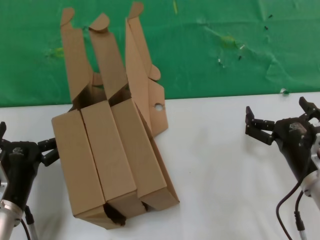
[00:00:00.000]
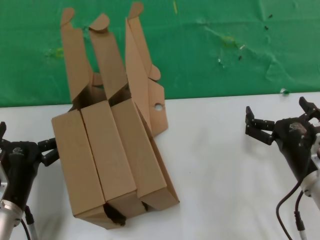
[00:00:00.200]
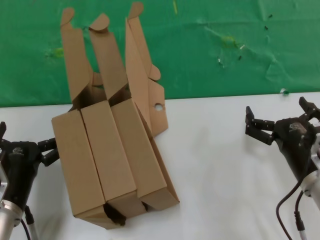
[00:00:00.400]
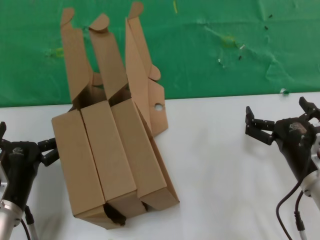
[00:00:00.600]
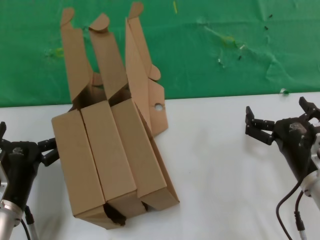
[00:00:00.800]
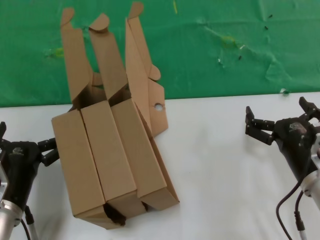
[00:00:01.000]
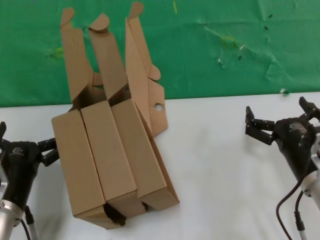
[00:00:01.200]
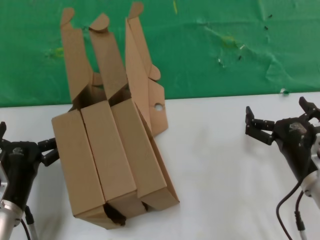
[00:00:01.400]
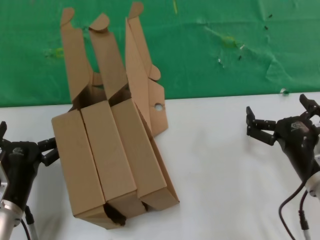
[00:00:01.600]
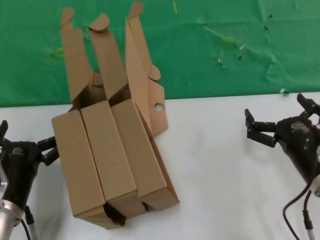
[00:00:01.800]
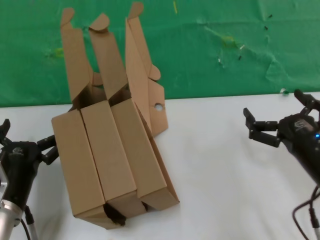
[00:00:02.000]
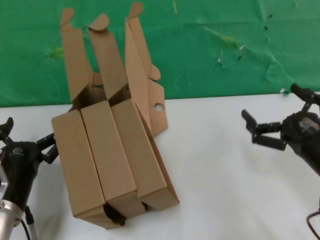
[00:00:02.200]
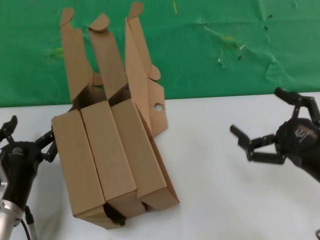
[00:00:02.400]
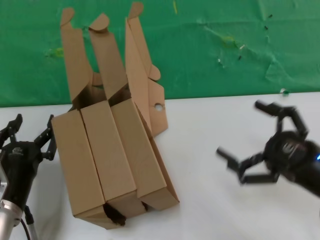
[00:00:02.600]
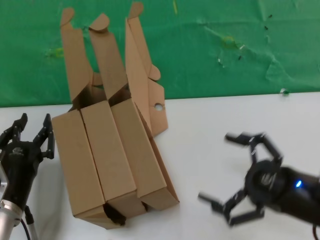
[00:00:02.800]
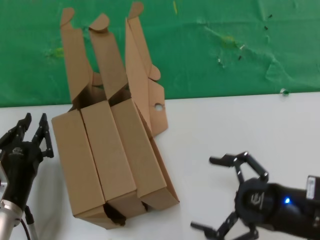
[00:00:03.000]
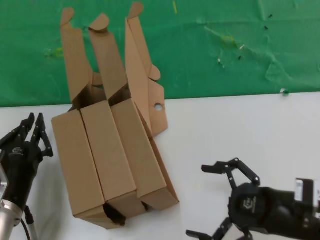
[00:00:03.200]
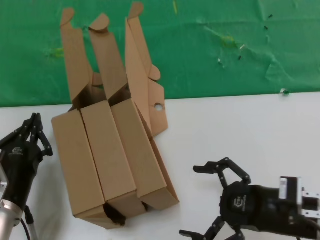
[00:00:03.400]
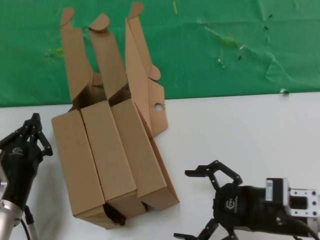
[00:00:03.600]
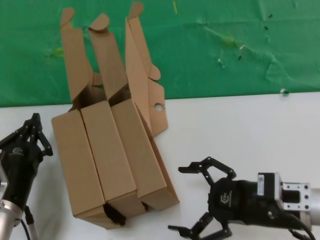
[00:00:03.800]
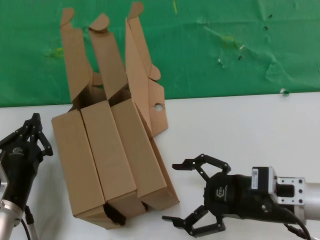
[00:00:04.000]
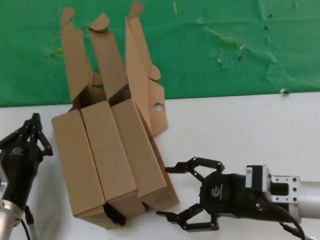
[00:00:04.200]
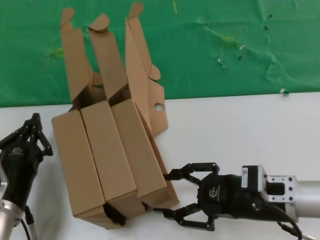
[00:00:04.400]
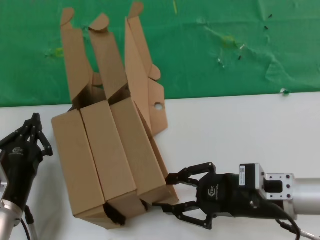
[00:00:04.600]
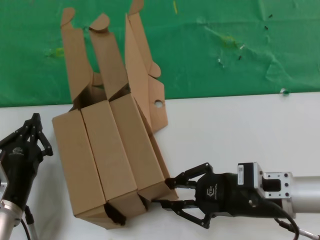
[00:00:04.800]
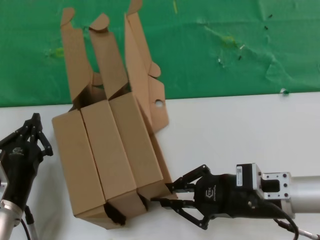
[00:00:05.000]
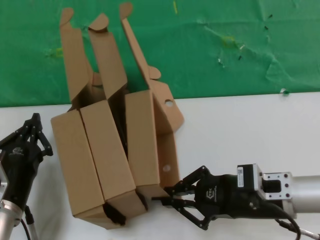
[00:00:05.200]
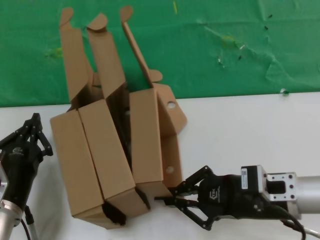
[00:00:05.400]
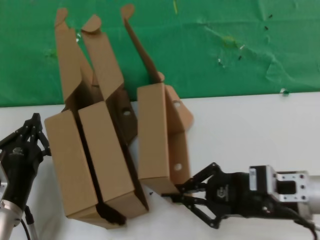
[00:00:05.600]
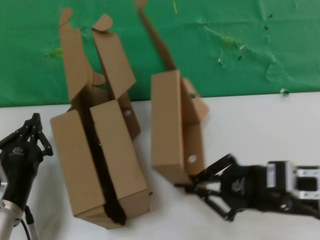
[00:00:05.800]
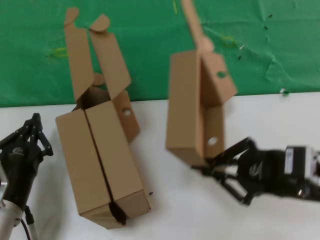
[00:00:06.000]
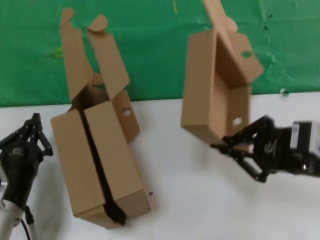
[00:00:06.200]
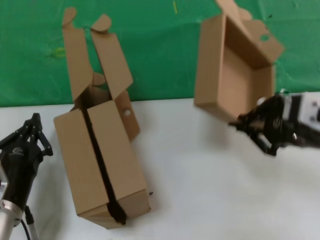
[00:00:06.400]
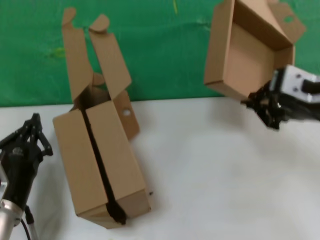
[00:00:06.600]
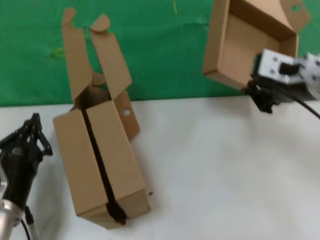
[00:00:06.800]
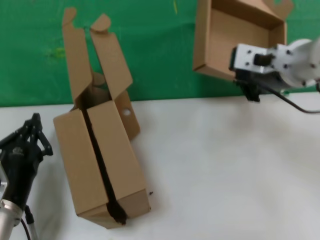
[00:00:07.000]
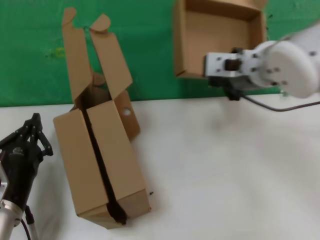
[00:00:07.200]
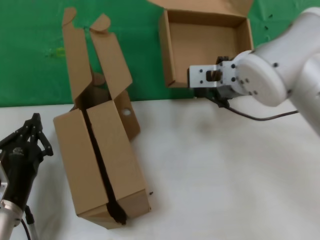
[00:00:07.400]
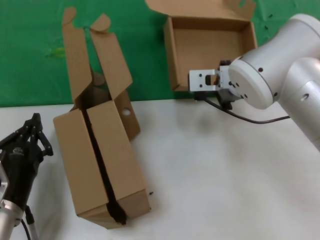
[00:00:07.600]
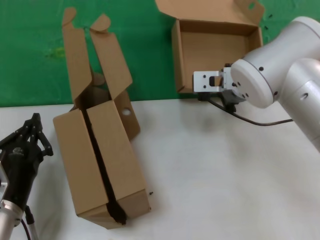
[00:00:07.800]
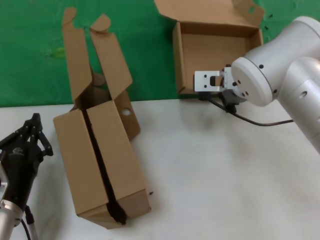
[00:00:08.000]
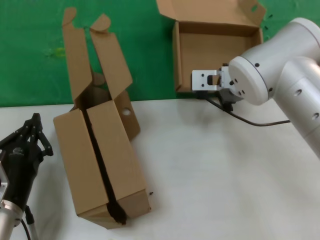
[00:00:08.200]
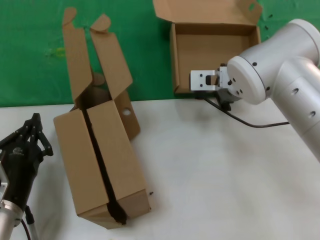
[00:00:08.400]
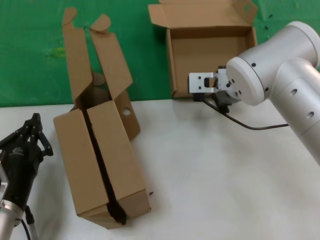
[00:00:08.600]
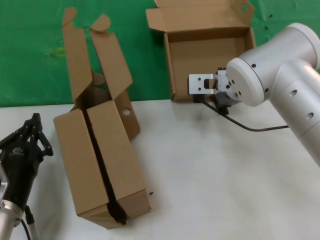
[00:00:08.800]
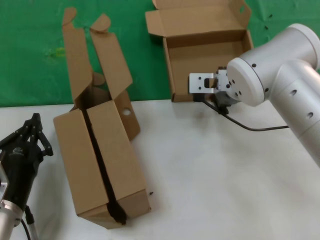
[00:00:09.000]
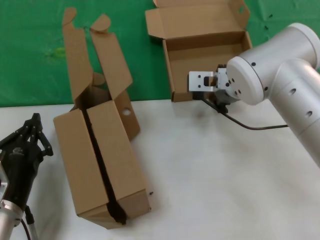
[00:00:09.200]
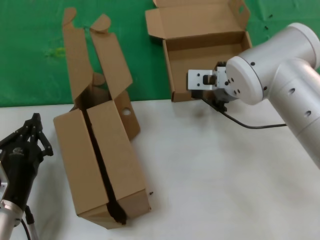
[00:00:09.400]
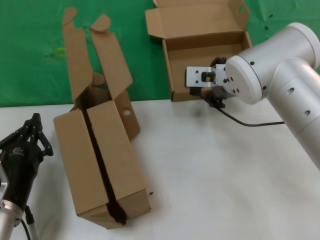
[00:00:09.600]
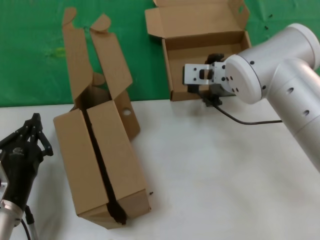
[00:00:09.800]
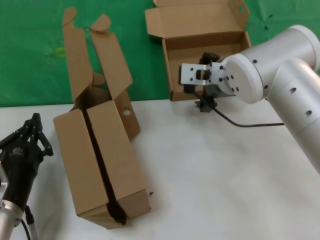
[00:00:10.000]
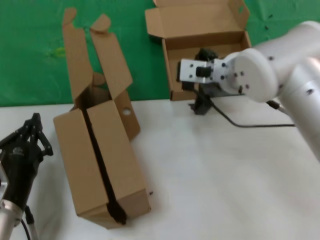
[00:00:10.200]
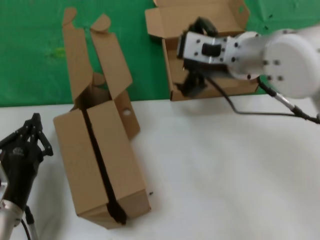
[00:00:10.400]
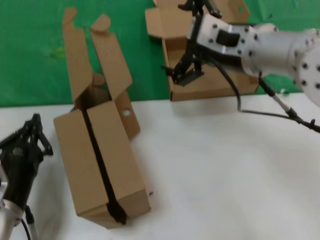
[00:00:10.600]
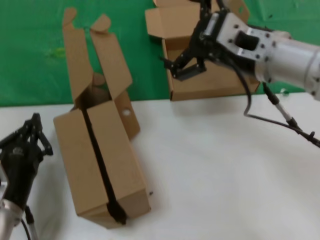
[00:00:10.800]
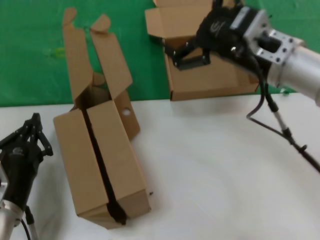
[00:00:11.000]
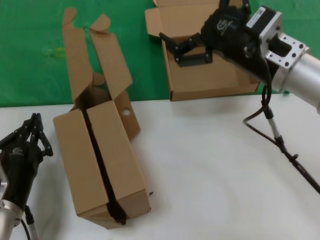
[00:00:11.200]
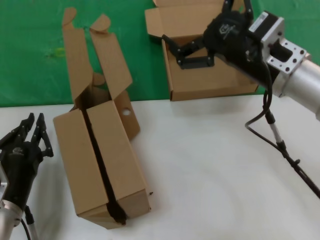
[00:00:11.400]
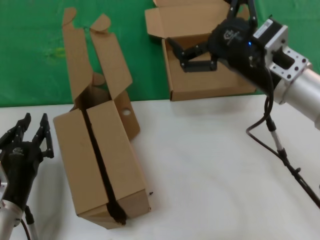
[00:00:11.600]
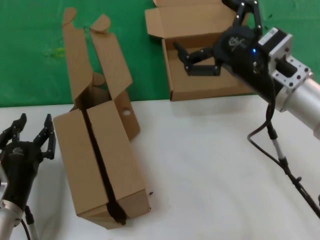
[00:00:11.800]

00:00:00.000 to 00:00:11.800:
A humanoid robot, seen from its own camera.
Task of the whole recording: pick up the paper box and put it at the back.
Step, 00:00:00.000 to 00:00:05.000: Grasp the paper box.
Step, 00:00:05.400 to 00:00:10.000: Place the paper box on the table.
00:00:00.000 to 00:00:01.400: The two hands keep their place.
00:00:01.400 to 00:00:03.000: The right hand ends up about 5 cm from where it was.
00:00:03.000 to 00:00:04.400: The right hand travels to the left and forward by some 10 cm.
00:00:04.400 to 00:00:06.000: The right hand is displaced upward by roughly 10 cm.
00:00:06.000 to 00:00:07.400: The right hand shifts roughly 25 cm forward and to the left.
00:00:07.400 to 00:00:08.800: The right hand ends up roughly 5 cm from where it was.
00:00:08.800 to 00:00:10.400: The right hand goes some 5 cm upward.
00:00:10.400 to 00:00:11.800: The right hand moves to the right, downward and backward, approximately 15 cm.
